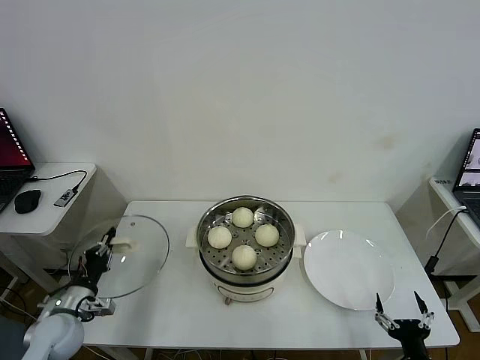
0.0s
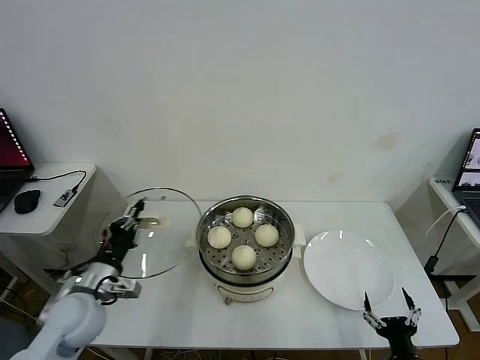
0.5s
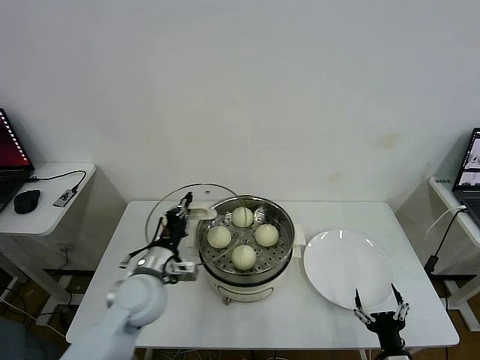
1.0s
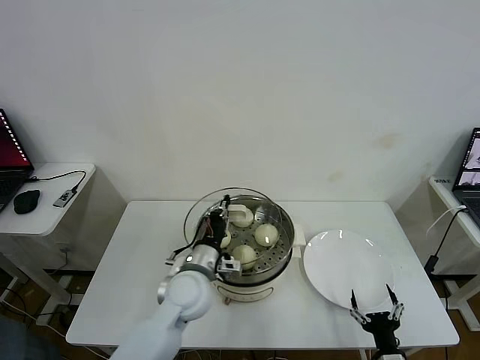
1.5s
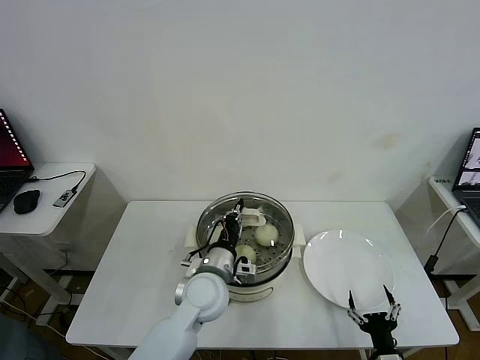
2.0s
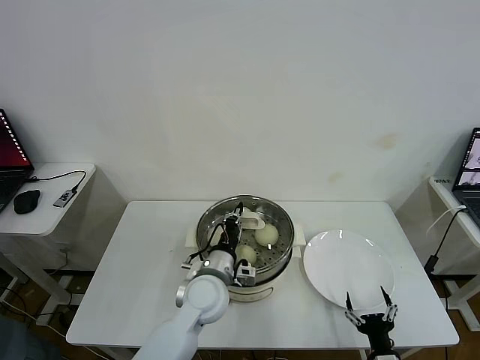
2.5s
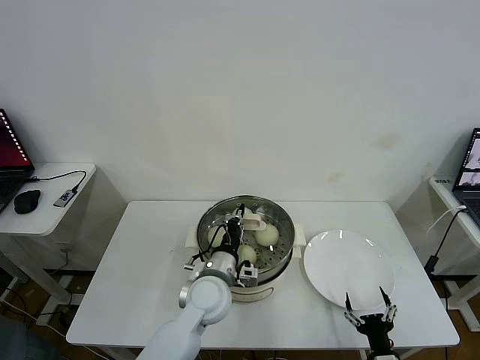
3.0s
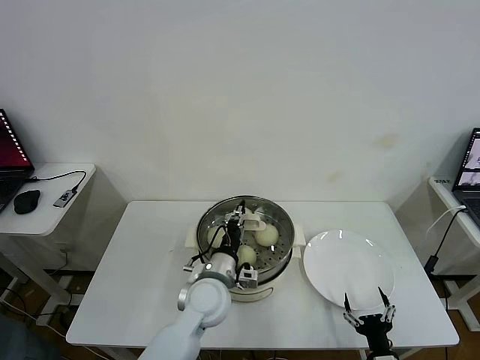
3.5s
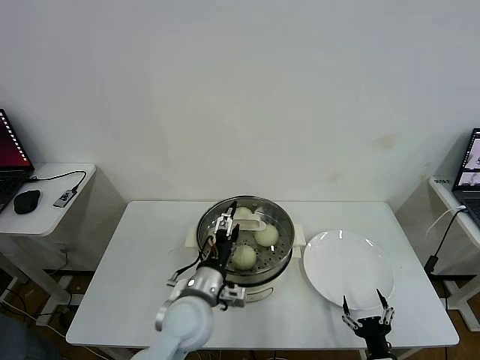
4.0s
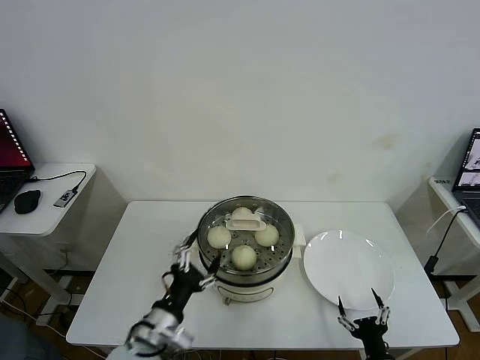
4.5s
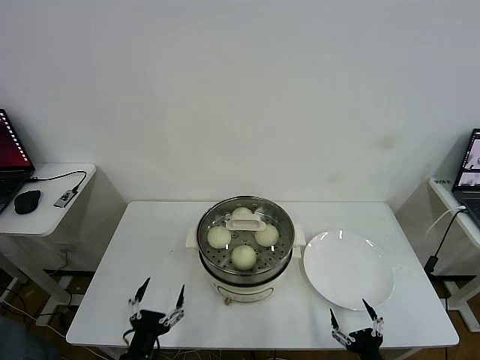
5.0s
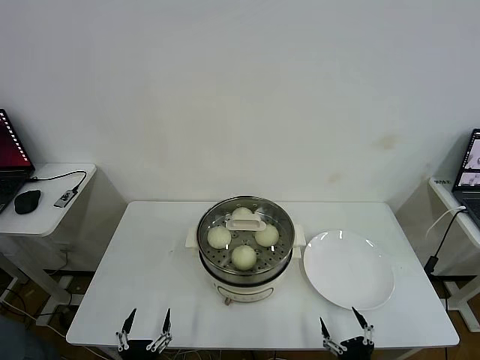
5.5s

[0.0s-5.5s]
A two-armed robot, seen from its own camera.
Task of the whole recording: take steamed baozi put them in steamer then cover it.
Step, 0.0s to 3.5s: Place the pot lid on the steamer with left gripper.
0.0s to 2.0s: The left gripper is displaced to the right by approximately 30 cm; the right gripper ends up some 5 cm from where it was.
2.0s to 3.5s: The grippers stay close to where they were, moving slightly.
3.5s to 5.5s: The left gripper travels backward, to the left and downward by about 30 cm, and opens up; the right gripper travels backward by some 5 cm.

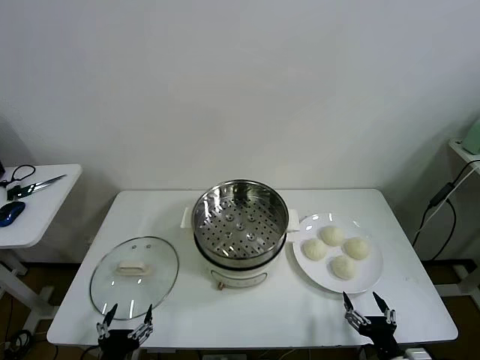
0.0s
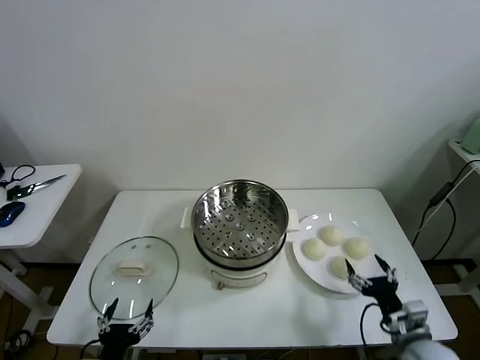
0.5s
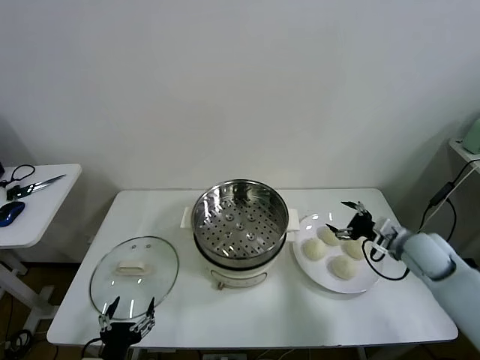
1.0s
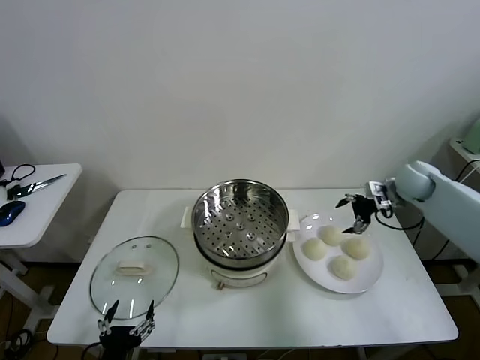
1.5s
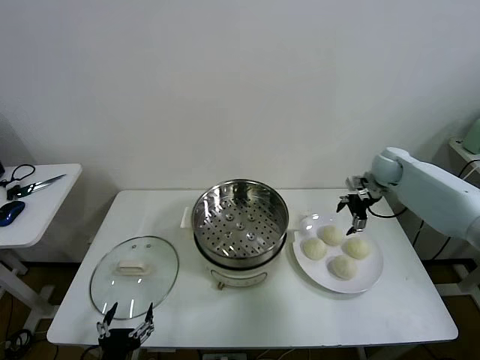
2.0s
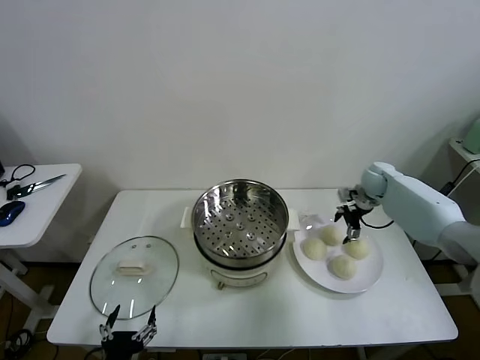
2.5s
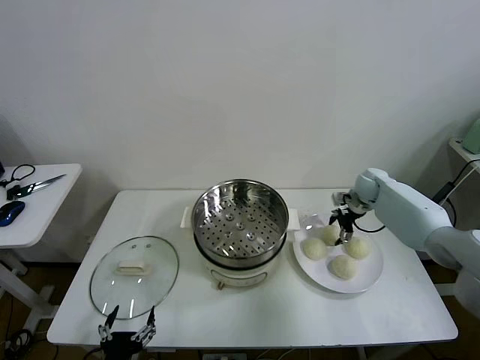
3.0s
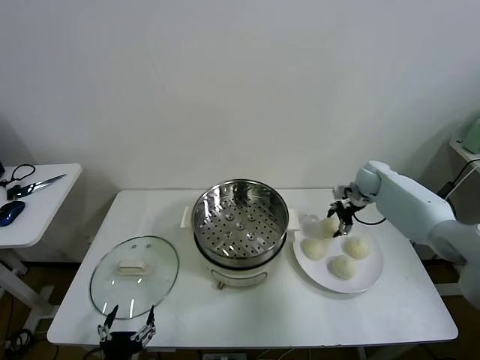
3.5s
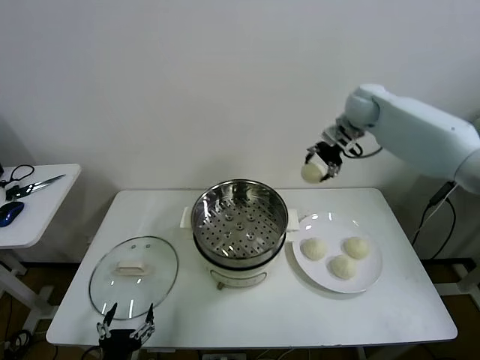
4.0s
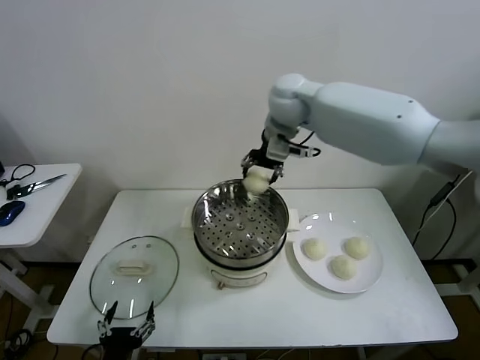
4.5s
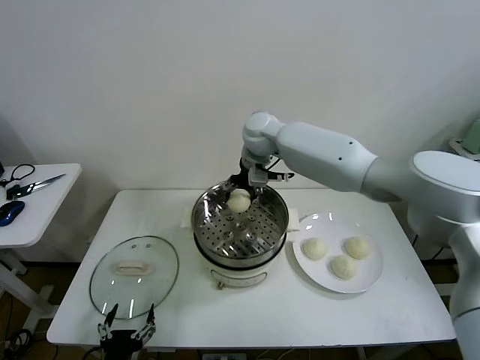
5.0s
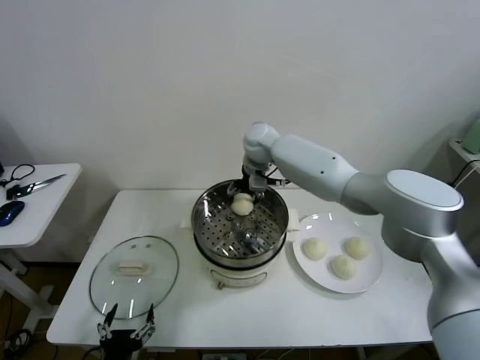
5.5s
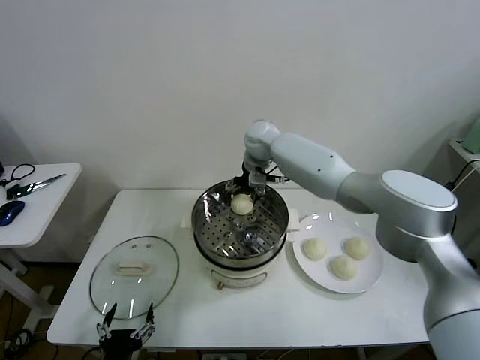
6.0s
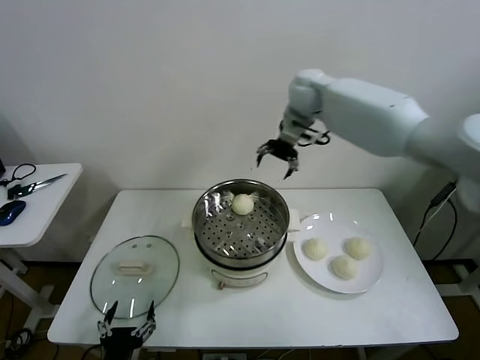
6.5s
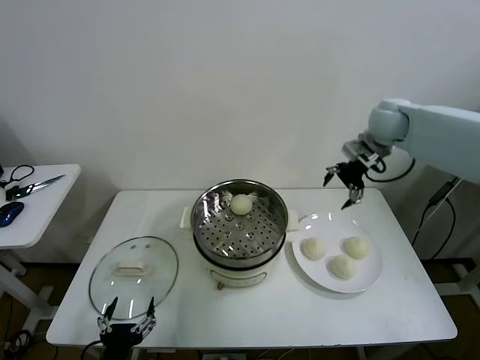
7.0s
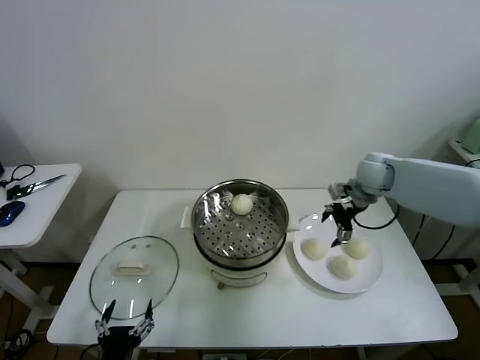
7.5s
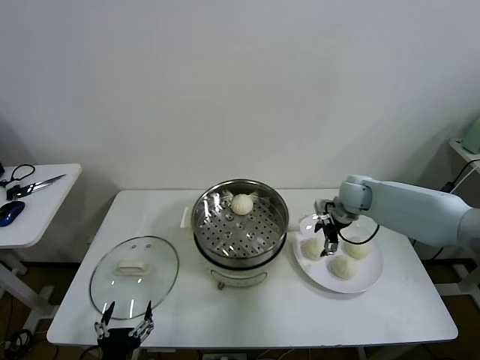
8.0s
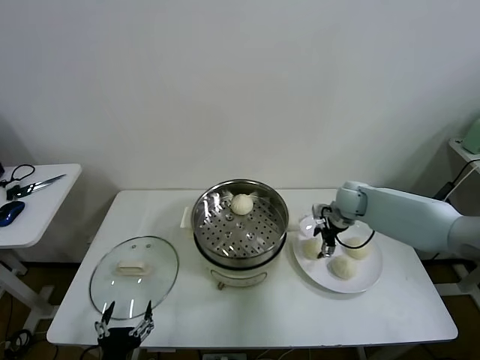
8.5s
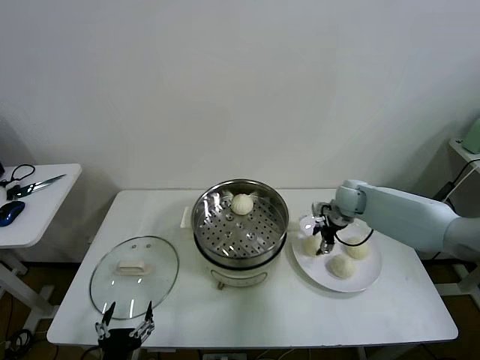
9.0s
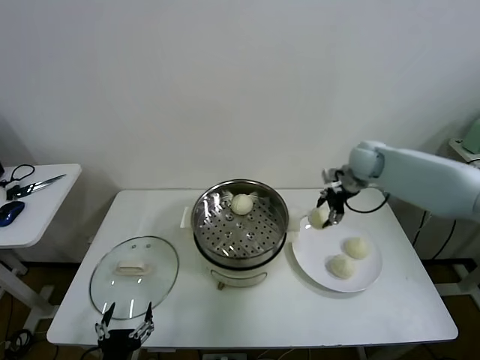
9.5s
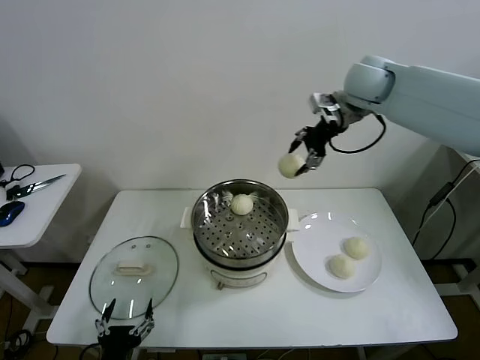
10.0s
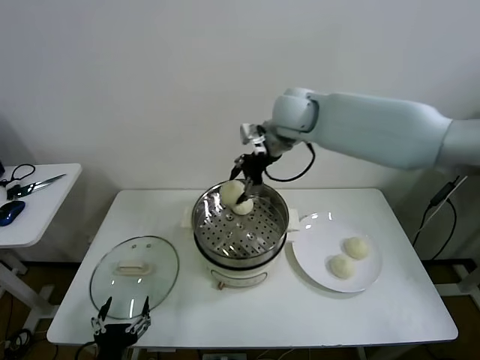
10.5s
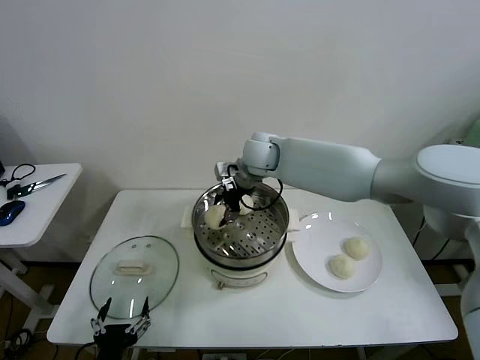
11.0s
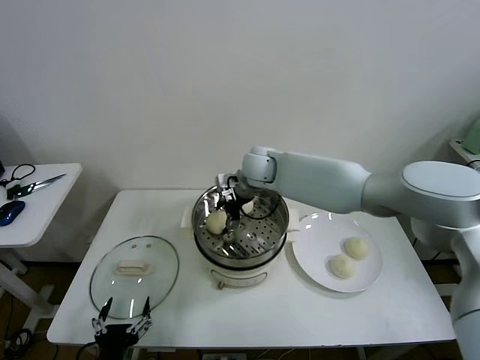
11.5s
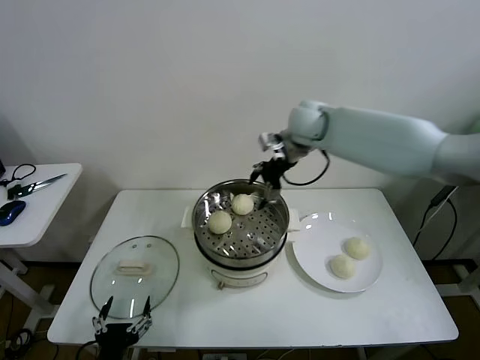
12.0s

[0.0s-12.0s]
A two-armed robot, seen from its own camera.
Task of the whole recording: take steamed baozi put them in steamer then cover it.
Step, 0.0s to 3.0s: Grasp the baozi in the plate with right gripper.
Step, 3.5s to 6.0s: Place the baozi on the steamer with right gripper.
Step, 6.5s to 8.5s: Grasp the baozi in the plate with right gripper.
Step, 9.0s to 11.5s: Place the baozi on the steamer with right gripper.
2.0s to 4.0s: The right gripper goes about 25 cm upward and to the left, and closes its fingers.
4.0s to 6.0s: The right gripper goes some 20 cm to the left and downward, and opens up.
6.0s to 8.0s: The right gripper shifts approximately 30 cm to the right and downward.
8.0s to 10.0s: The right gripper shifts approximately 30 cm upward, and closes its fingers.
10.0s to 12.0s: The right gripper heads downward, covering approximately 10 cm, and opens its fingers.

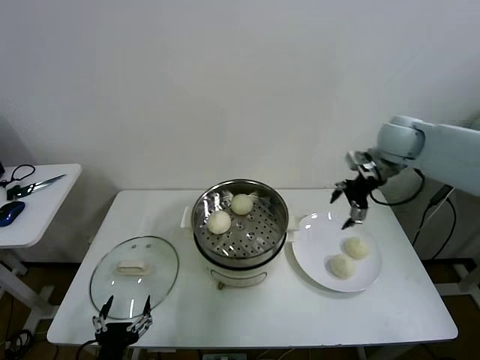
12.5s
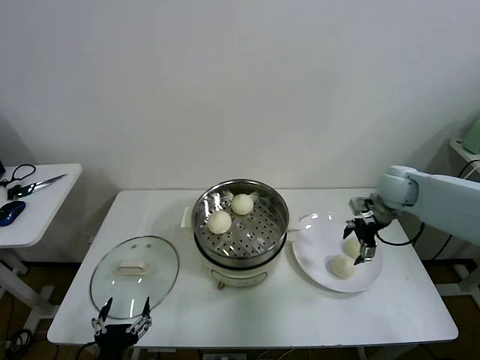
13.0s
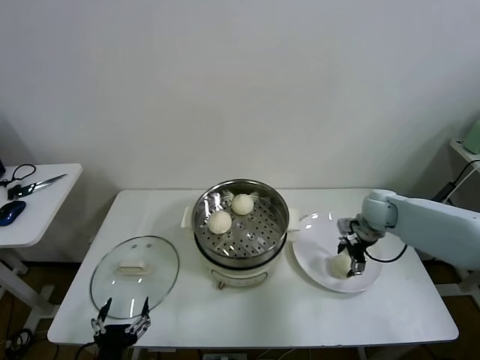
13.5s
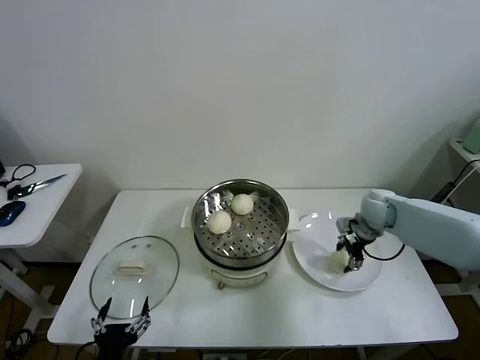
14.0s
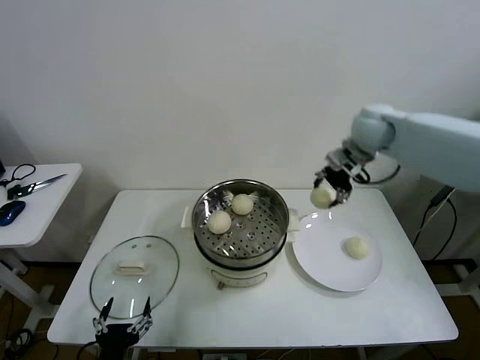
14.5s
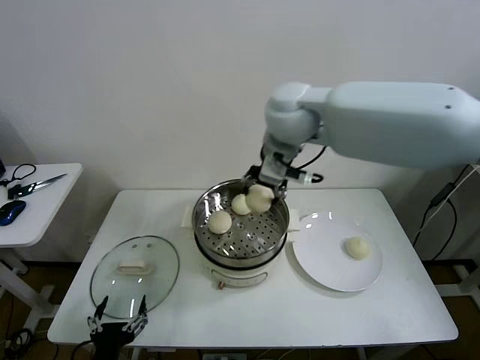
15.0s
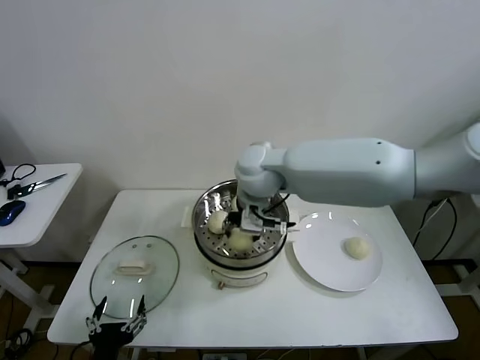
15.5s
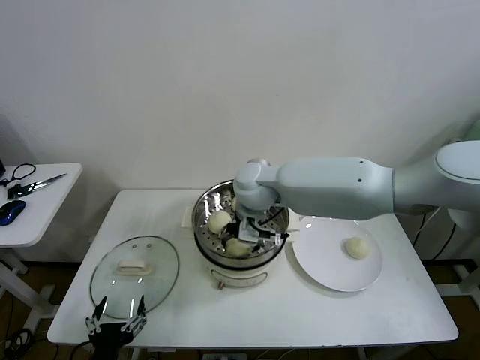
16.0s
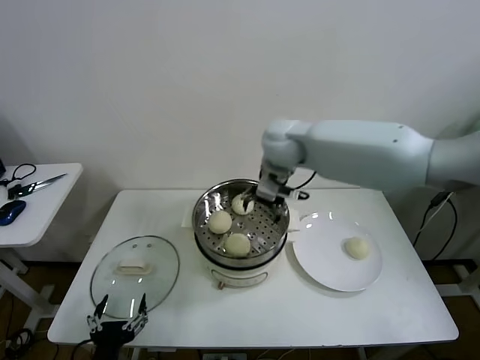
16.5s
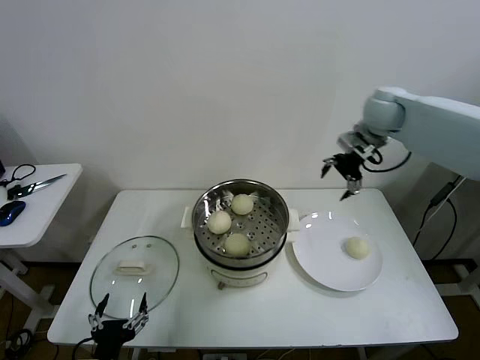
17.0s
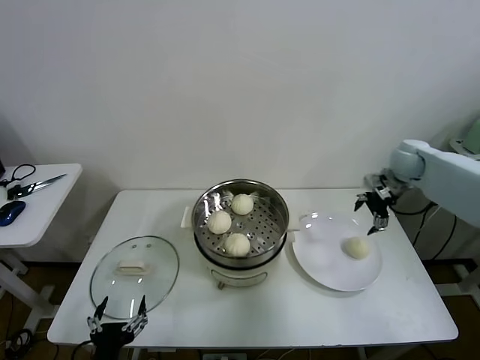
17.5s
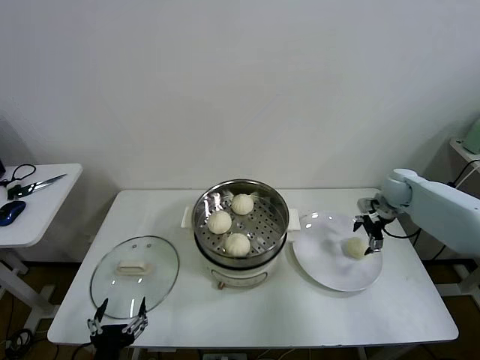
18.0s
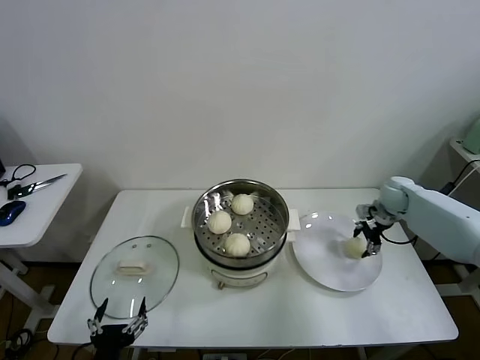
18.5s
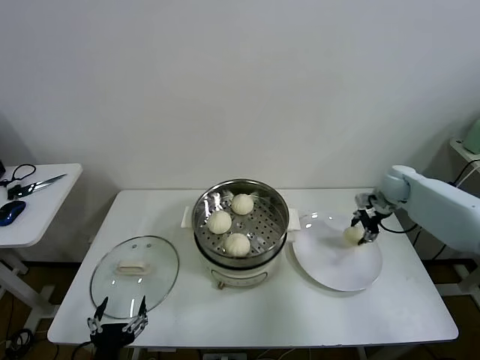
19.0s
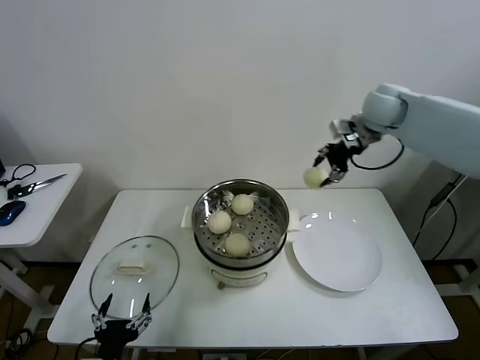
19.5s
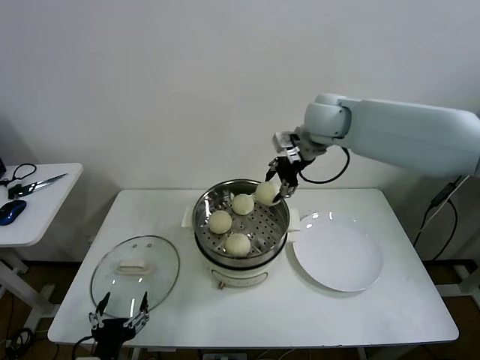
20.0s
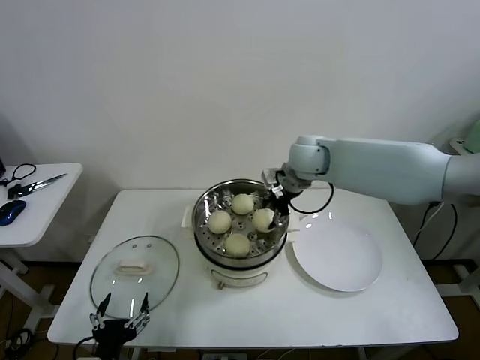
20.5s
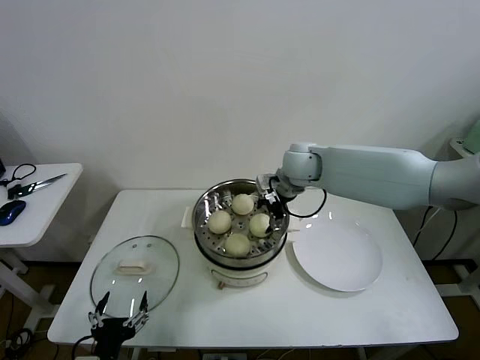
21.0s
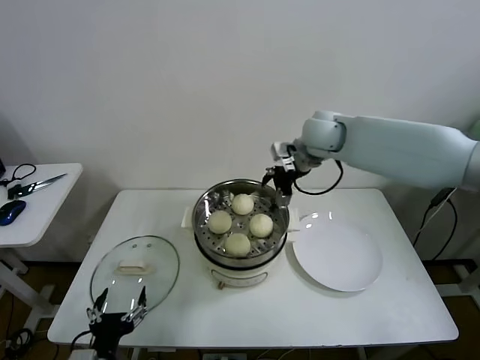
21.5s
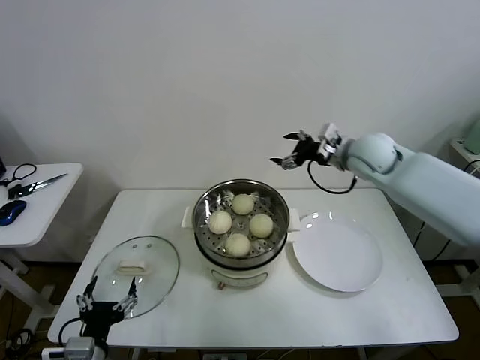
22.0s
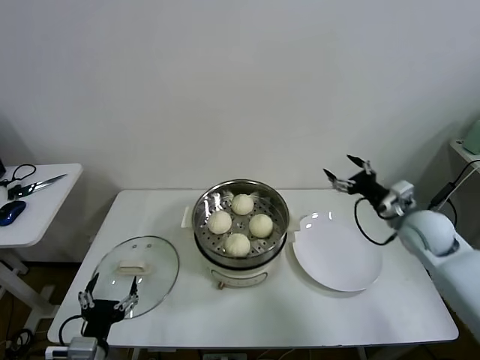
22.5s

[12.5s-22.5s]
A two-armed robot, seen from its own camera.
Task of the whole recording: take steamed baozi put them in steamer then cover it.
Step, 12.5s to 13.5s: Grasp the baozi in the plate with right gripper.
Step, 14.0s to 16.0s: Place the baozi on the steamer with right gripper.
Step, 16.5s to 18.5s: Grasp the baozi in the plate with right gripper.
Step, 19.0s to 21.0s: Place the baozi on the steamer with right gripper.
12.5s to 14.5s: The right gripper is displaced to the left by some 10 cm, reaches about 20 cm downward, then returns, and closes up.
14.5s to 16.5s: The right gripper travels to the left by approximately 15 cm, and opens its fingers.
16.5s to 18.5s: The right gripper heads to the right and downward, covering about 40 cm, and closes up.
18.5s to 20.5s: The right gripper is displaced to the left and upward by about 30 cm, and closes its fingers.
20.5s to 22.5s: The right gripper is displaced to the right, backward and downward by roughly 30 cm, and opens its fingers.
